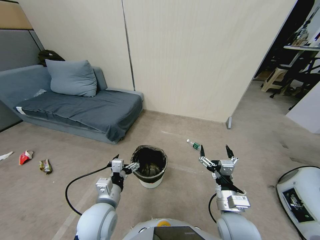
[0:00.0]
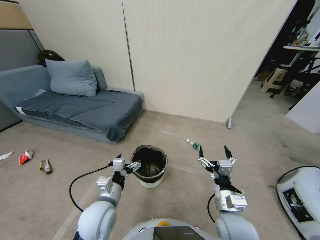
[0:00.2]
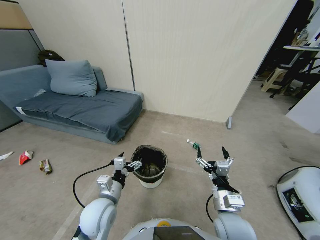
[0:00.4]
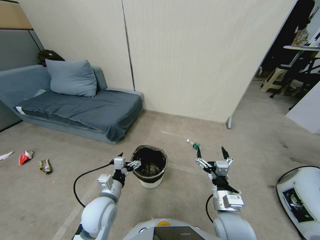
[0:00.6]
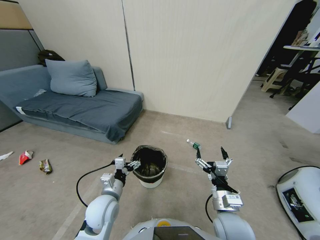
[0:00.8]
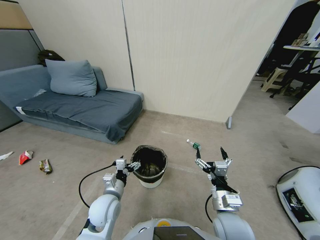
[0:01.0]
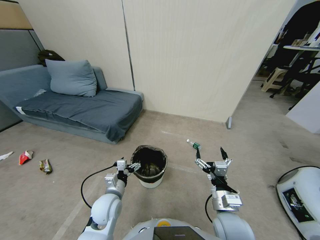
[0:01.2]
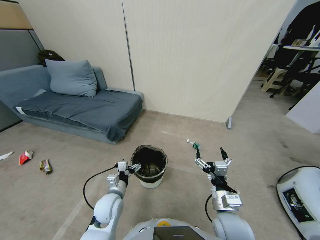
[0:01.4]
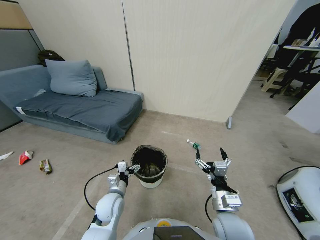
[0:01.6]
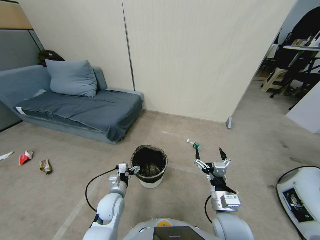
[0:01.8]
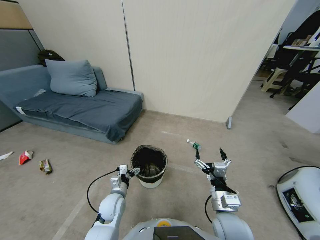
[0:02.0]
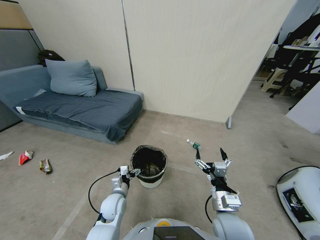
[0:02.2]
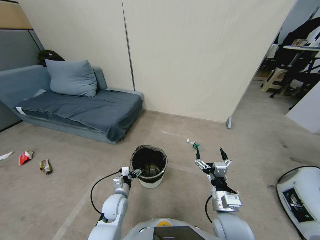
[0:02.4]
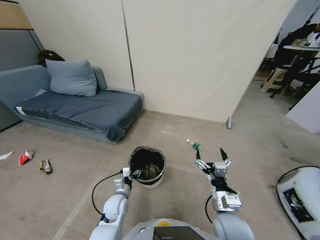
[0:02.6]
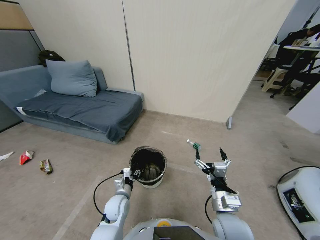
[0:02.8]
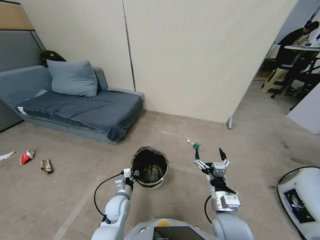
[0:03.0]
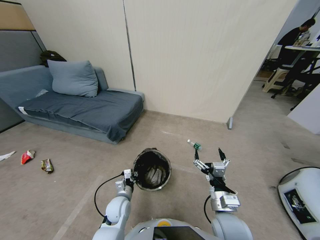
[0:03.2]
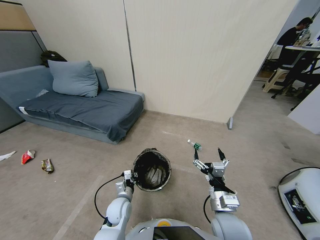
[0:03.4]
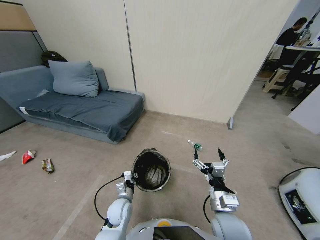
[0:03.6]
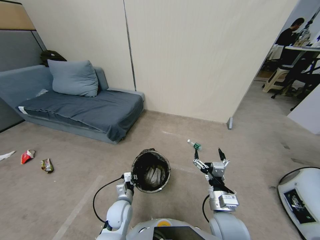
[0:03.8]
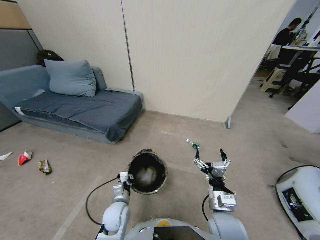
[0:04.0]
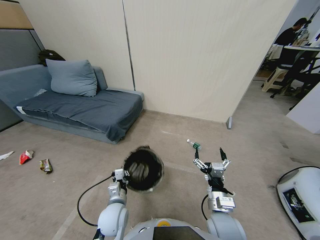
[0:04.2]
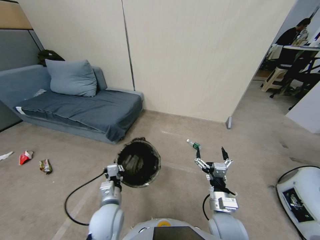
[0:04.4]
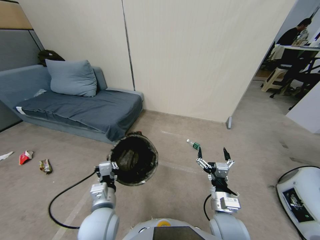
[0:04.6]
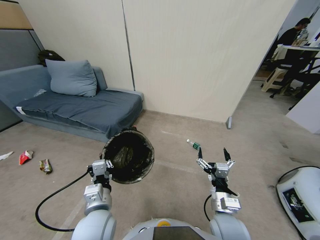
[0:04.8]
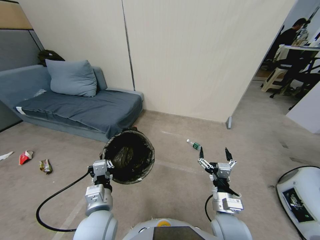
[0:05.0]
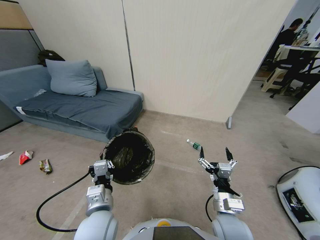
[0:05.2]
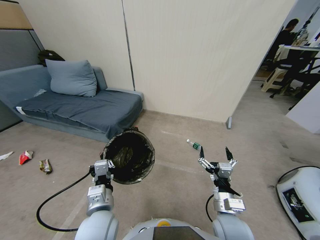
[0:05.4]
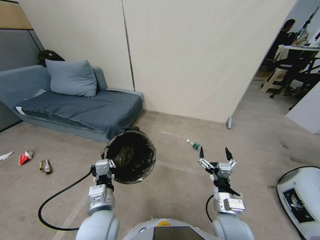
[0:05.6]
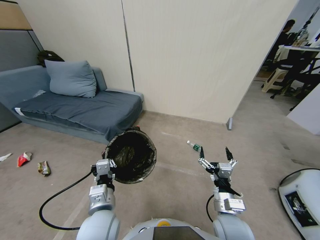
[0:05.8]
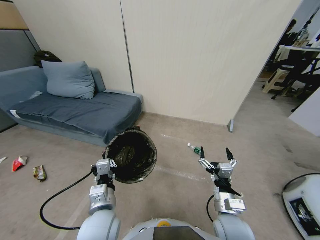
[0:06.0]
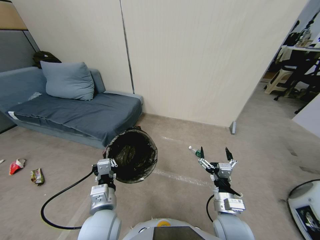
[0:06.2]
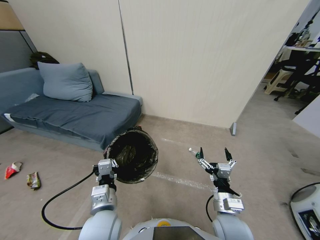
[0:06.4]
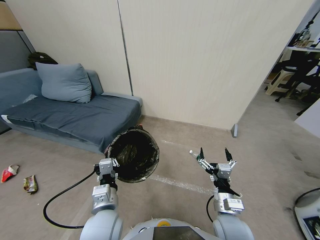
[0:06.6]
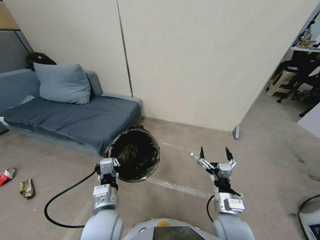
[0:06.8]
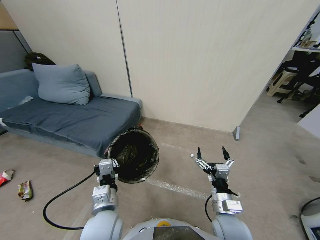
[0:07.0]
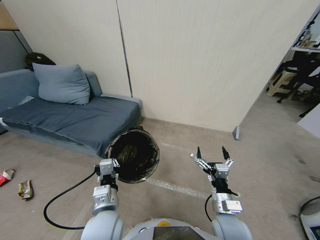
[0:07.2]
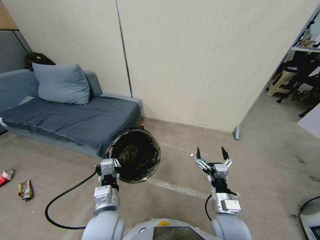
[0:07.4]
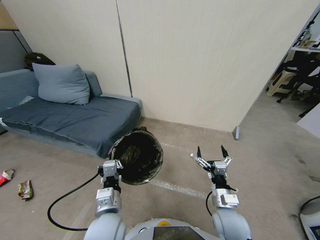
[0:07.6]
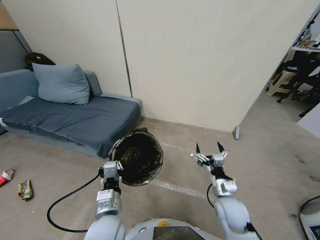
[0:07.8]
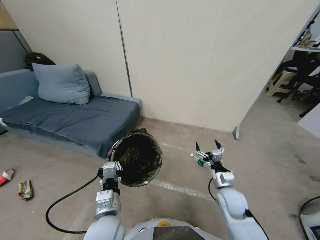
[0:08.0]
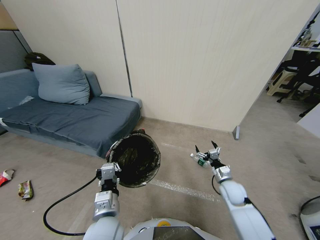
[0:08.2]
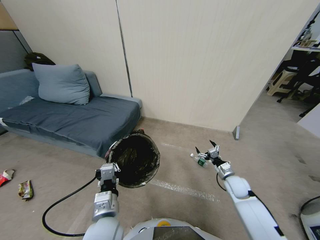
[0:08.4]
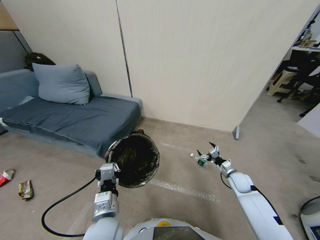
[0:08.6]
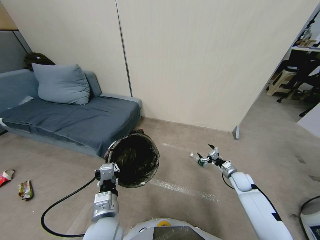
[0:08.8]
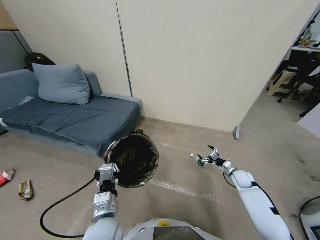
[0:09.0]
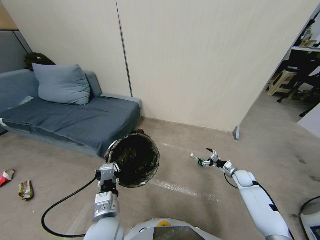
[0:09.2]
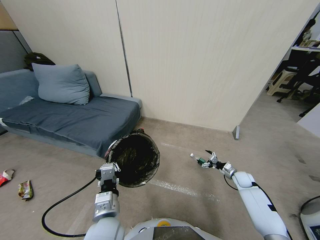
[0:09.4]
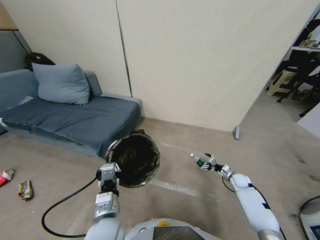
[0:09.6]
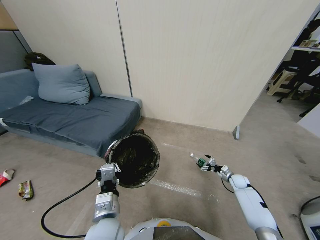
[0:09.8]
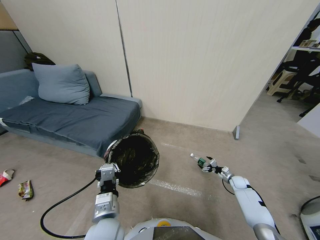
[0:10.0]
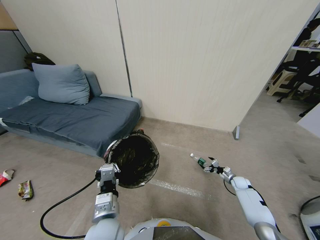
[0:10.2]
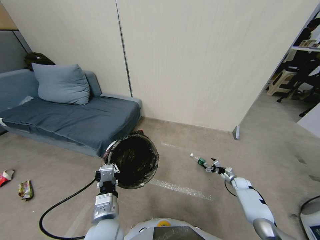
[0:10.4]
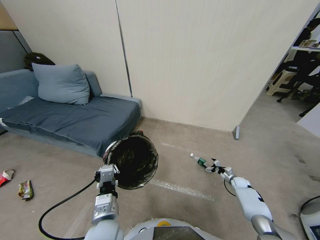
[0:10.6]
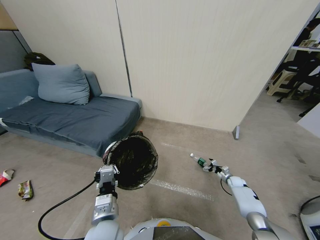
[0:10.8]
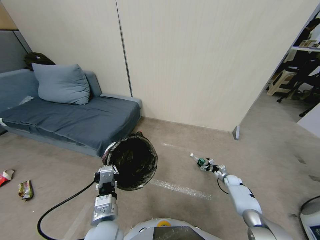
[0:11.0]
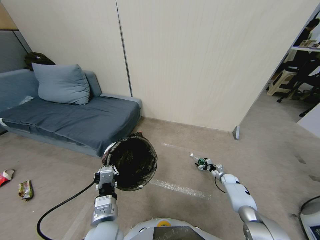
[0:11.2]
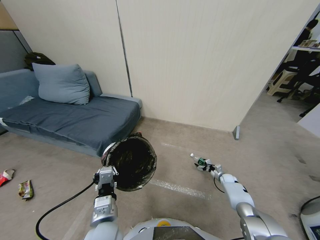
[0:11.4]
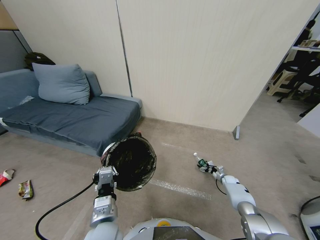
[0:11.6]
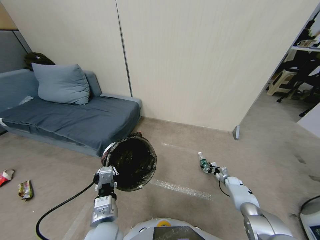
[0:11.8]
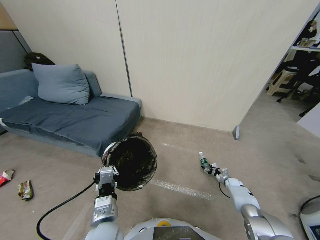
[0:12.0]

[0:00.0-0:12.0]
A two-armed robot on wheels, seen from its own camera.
Task of the whole recording: Pick up the trash bin, then pick up the garbage from the floor and place it into the trash bin.
0:00.0 to 0:01.6: The left gripper moves downward, about 10 cm.
0:01.6 to 0:03.0: The left gripper shifts some 5 cm downward, and closes its fingers.
0:03.0 to 0:04.4: The left gripper goes some 15 cm upward and backward.
0:04.4 to 0:06.0: The grippers move only a little.
0:06.0 to 0:07.6: The right gripper moves approximately 5 cm.
0:07.6 to 0:09.0: The right gripper moves to the right, forward and downward, some 30 cm.
0:09.0 to 0:10.4: The right gripper goes approximately 10 cm downward and to the right.
0:10.4 to 0:12.0: The right gripper ends up some 5 cm from where it was, and closes its fingers.

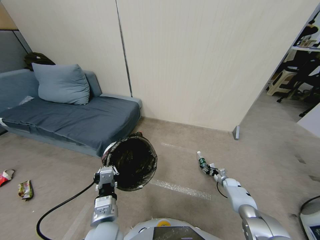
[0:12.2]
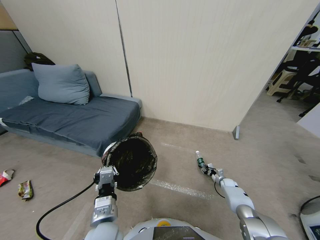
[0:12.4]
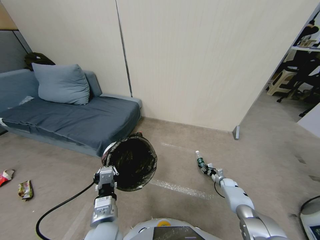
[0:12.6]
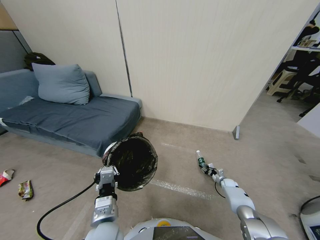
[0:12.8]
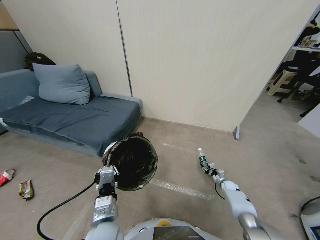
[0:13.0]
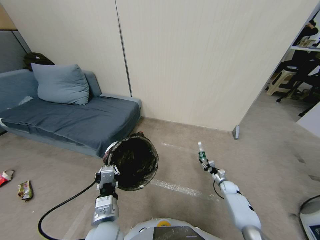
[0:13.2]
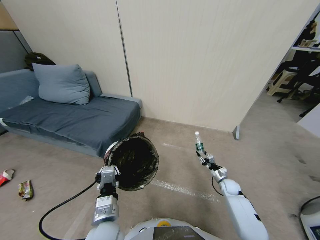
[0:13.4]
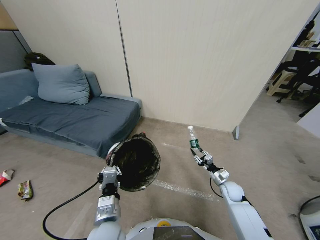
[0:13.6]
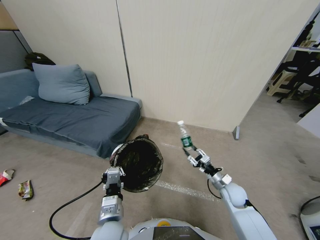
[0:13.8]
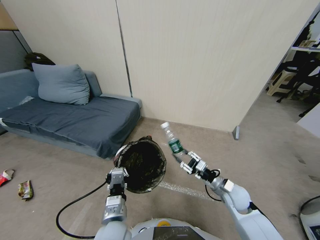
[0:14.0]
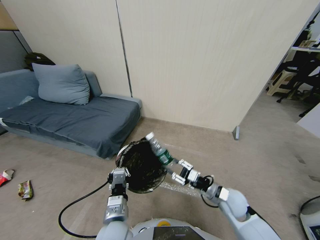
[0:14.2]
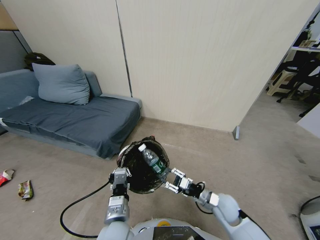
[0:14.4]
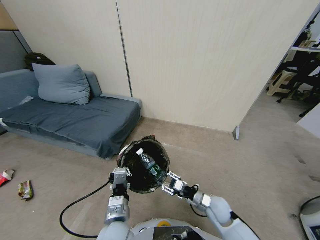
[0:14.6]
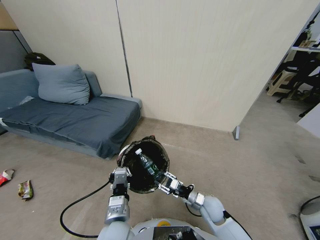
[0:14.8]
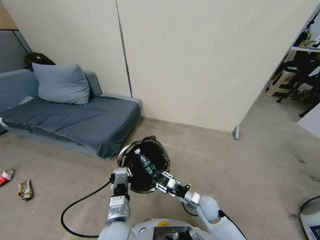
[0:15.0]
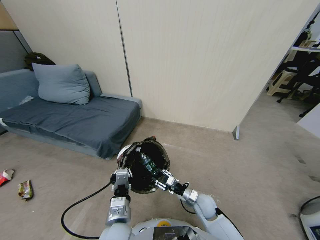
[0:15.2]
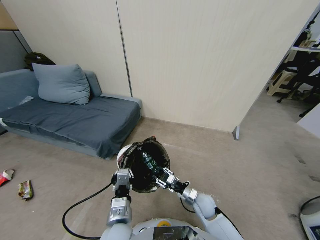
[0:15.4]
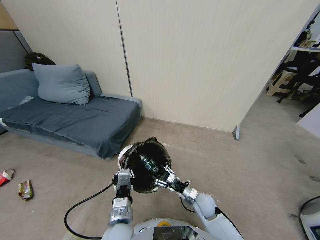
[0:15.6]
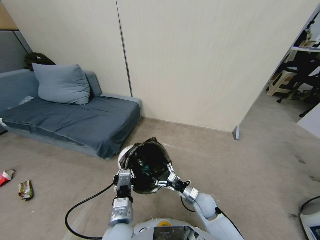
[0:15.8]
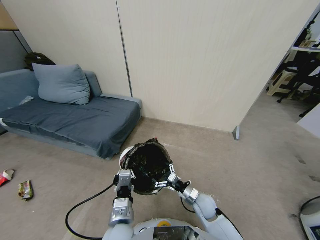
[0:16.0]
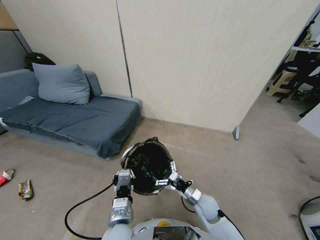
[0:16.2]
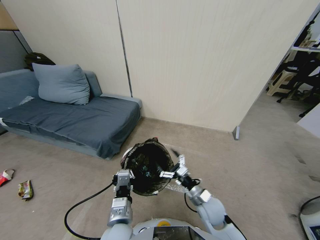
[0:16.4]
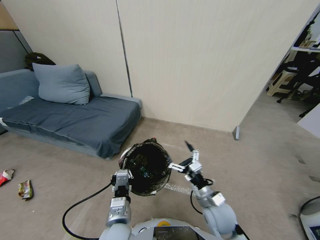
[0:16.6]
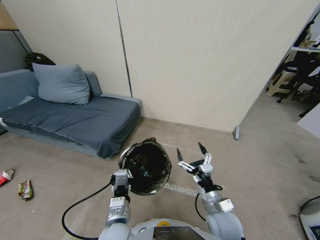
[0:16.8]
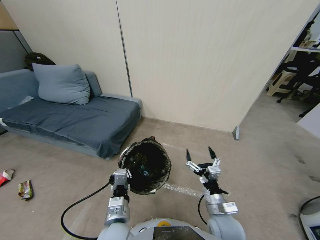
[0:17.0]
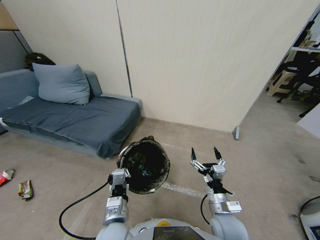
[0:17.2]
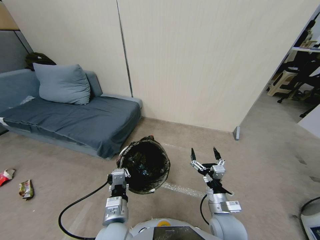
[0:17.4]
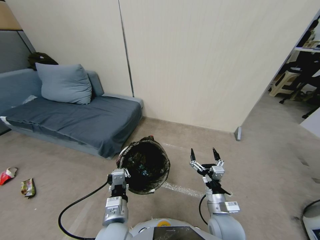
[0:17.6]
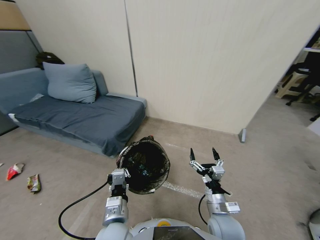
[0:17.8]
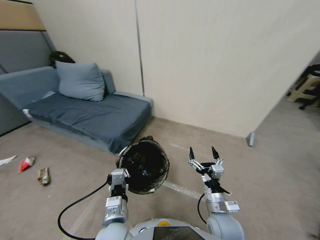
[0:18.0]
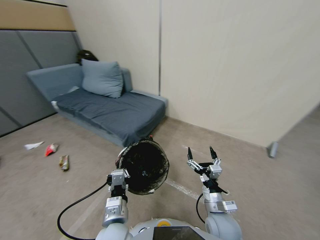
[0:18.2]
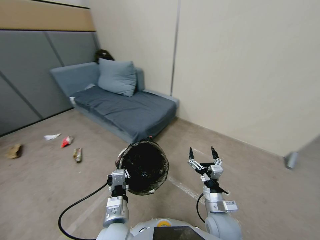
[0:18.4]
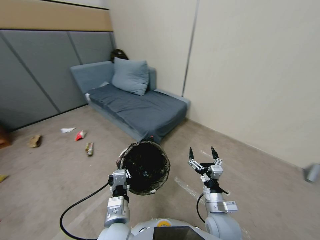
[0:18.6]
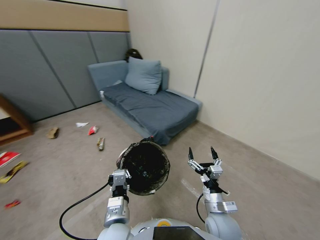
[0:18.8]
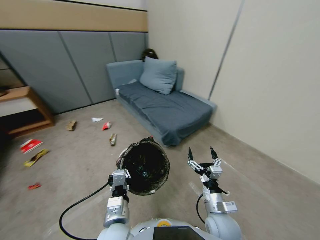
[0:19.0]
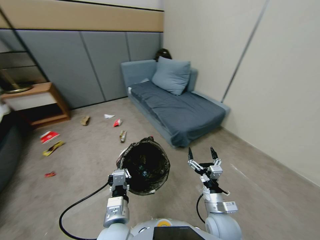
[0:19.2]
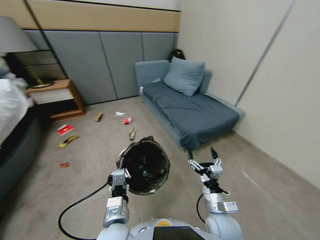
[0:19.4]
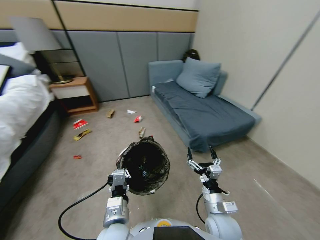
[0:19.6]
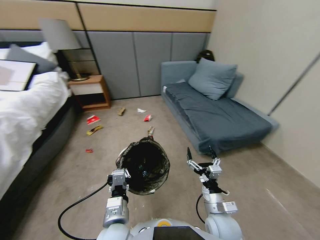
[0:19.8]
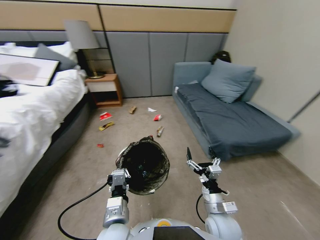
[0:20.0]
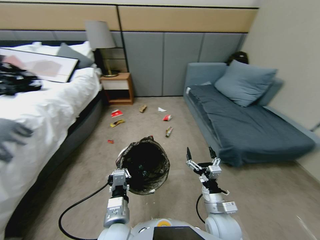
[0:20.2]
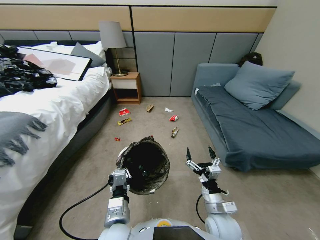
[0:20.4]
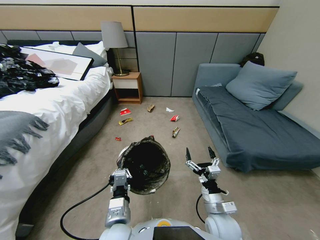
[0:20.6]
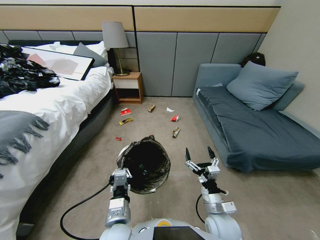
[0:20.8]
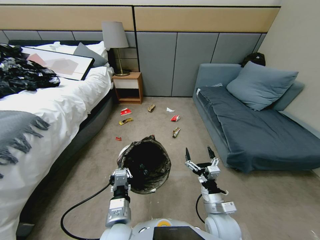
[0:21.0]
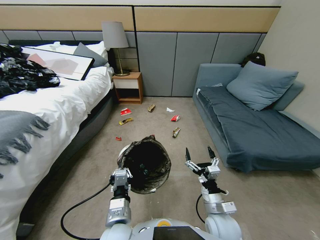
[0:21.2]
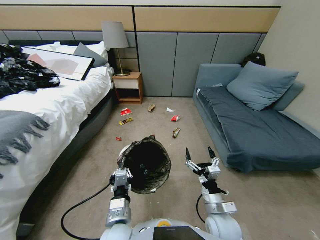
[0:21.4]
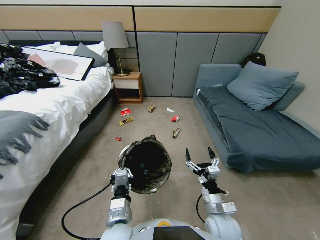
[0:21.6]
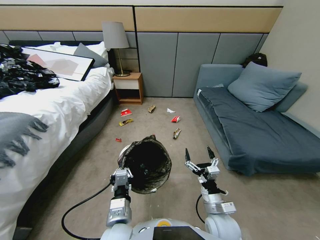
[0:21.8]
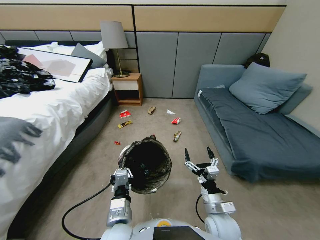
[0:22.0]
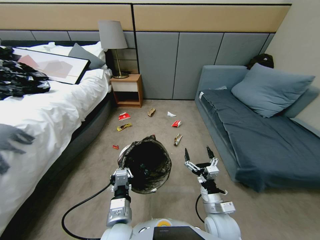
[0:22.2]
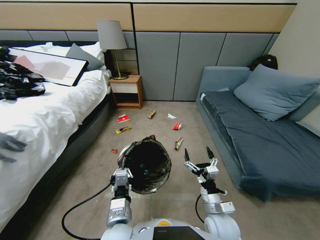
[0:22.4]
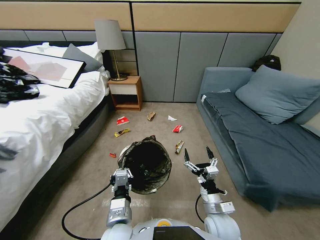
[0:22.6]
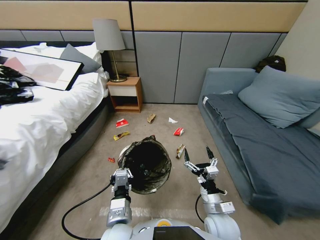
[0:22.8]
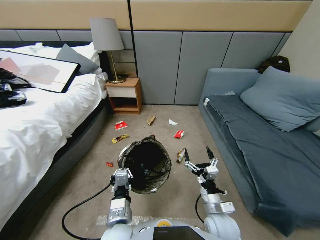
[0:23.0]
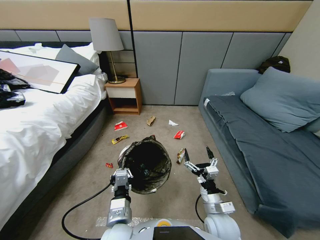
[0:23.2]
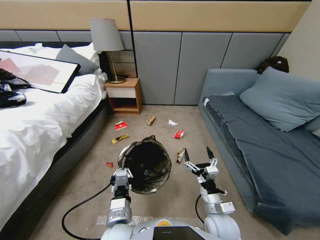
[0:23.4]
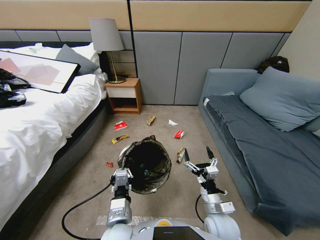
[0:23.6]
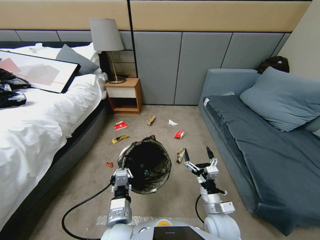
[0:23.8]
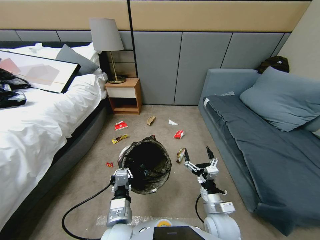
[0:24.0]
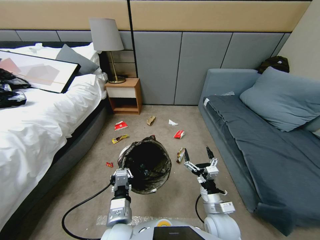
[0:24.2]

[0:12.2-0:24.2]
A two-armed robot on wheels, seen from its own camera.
Task of the whole recording: Pick up the trash bin, then pick up the garbage from the floor and place it into the trash bin.
0:12.2 to 0:13.8: The right gripper travels upward, to the left and backward by about 35 cm.
0:13.8 to 0:15.2: The right gripper is displaced to the left and downward by about 15 cm.
0:15.2 to 0:16.6: The right gripper moves upward and backward, roughly 15 cm, and opens.
0:22.6 to 0:24.2: The two grippers keep their place.
